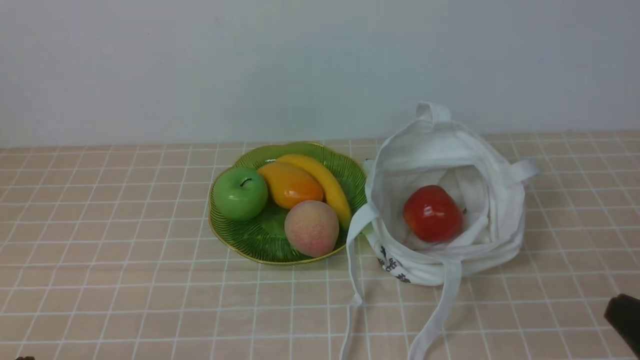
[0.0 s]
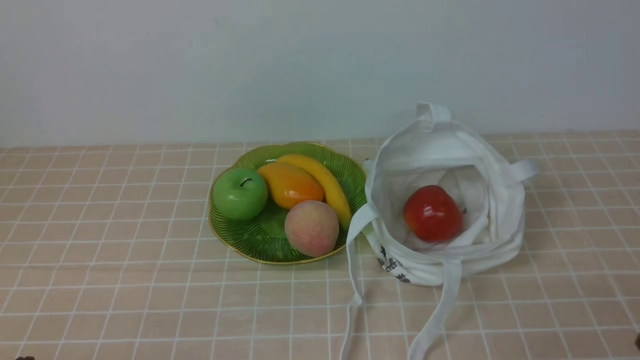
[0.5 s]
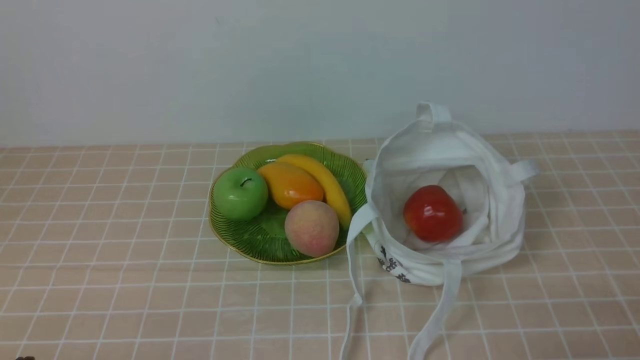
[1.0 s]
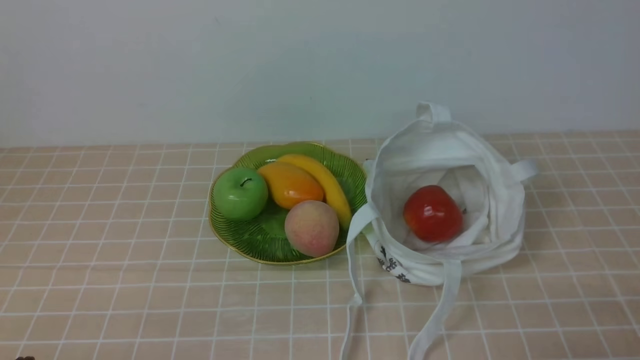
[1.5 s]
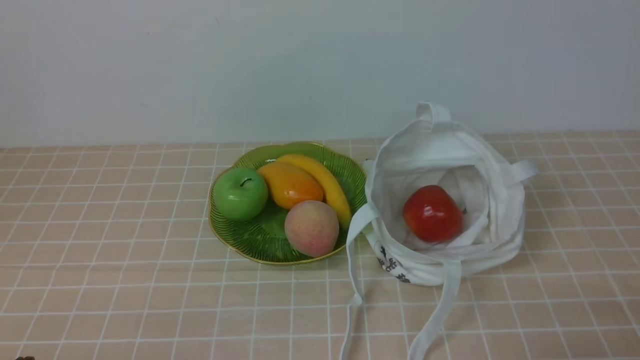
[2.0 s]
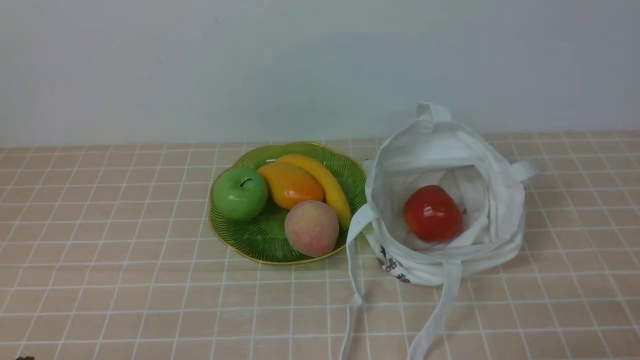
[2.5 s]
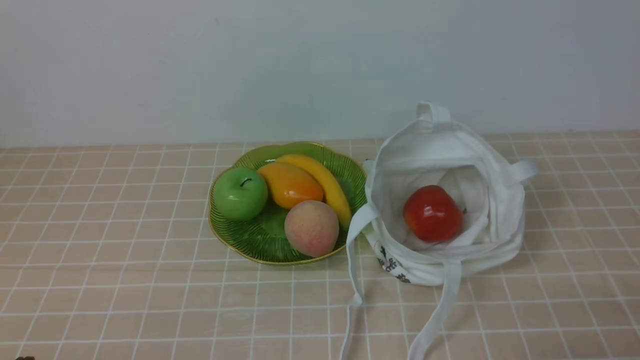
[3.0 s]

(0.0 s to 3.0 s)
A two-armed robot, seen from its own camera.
1.5 s - 3.0 s: Neither gripper changes place.
